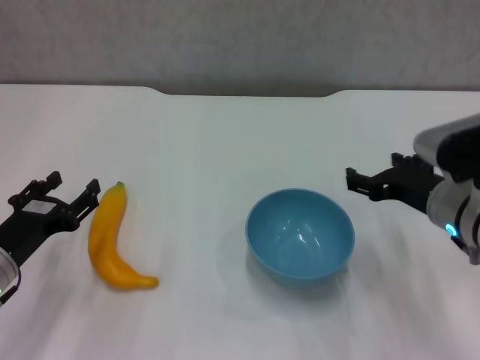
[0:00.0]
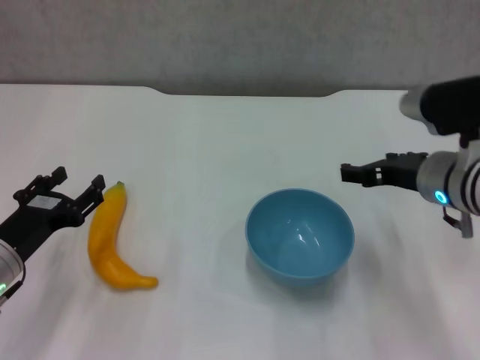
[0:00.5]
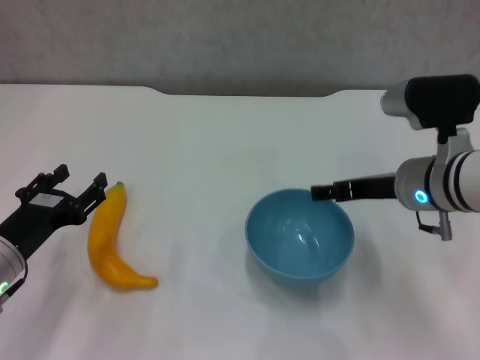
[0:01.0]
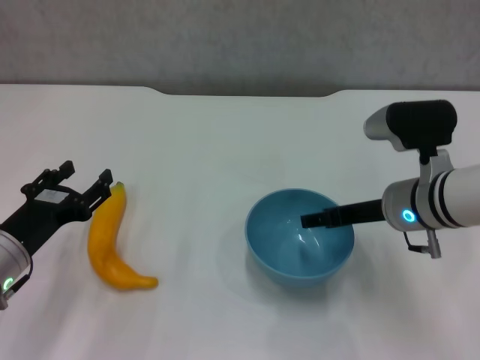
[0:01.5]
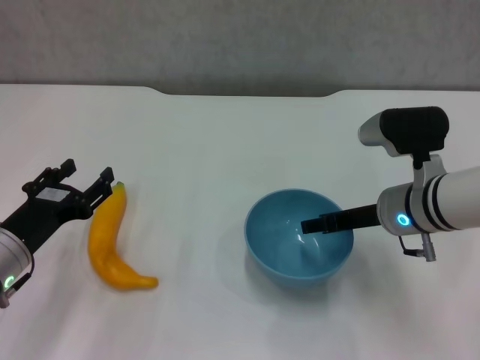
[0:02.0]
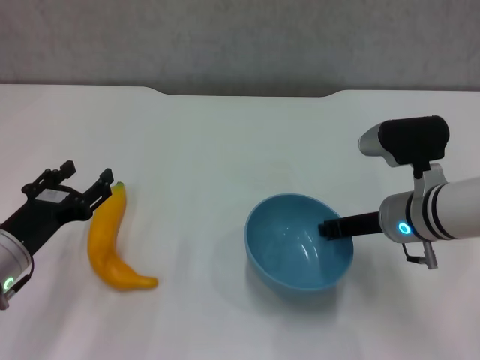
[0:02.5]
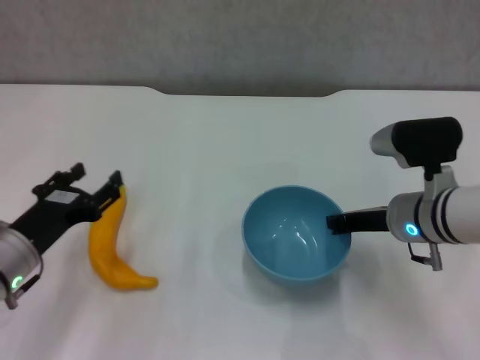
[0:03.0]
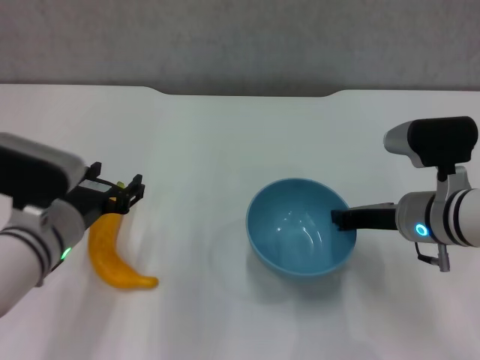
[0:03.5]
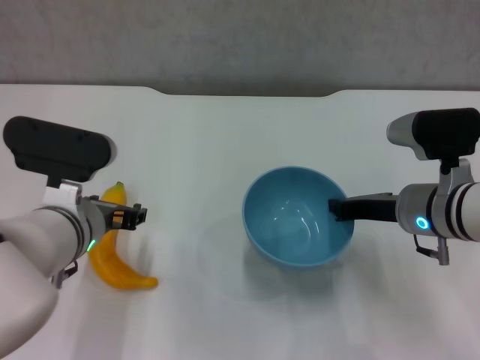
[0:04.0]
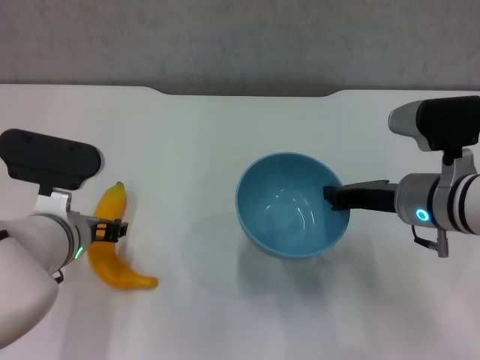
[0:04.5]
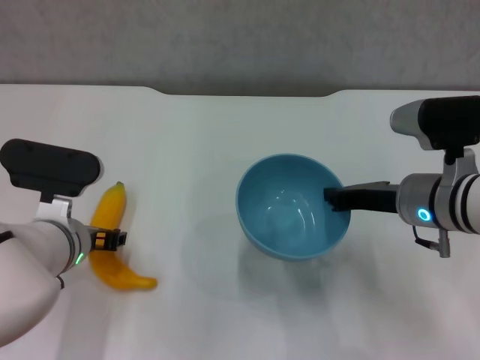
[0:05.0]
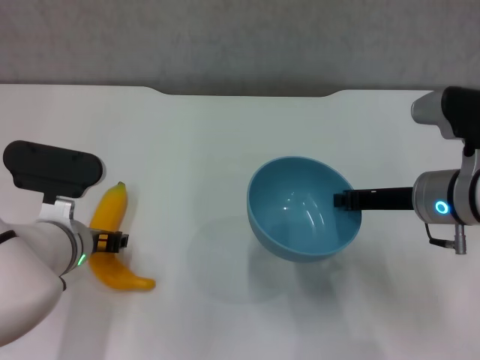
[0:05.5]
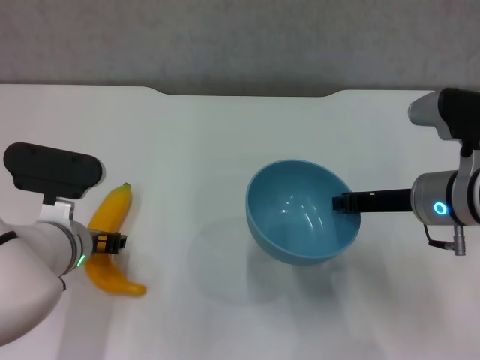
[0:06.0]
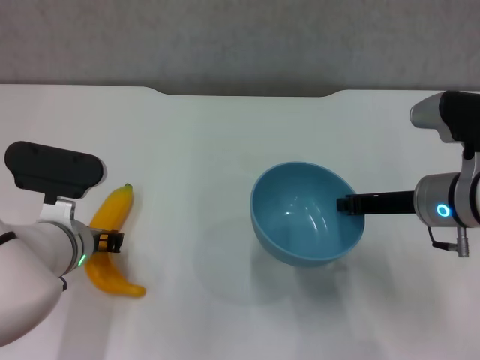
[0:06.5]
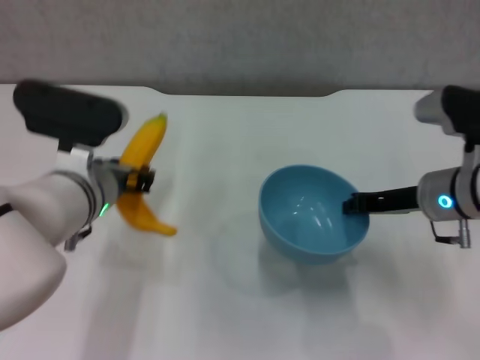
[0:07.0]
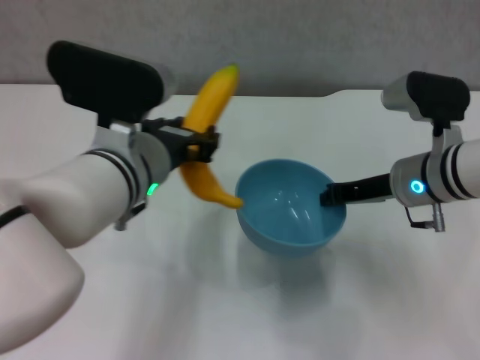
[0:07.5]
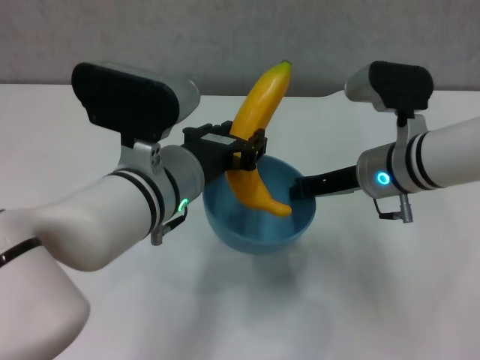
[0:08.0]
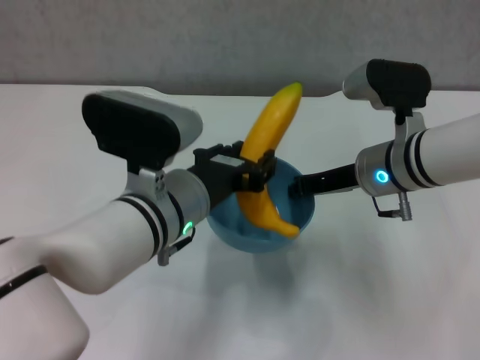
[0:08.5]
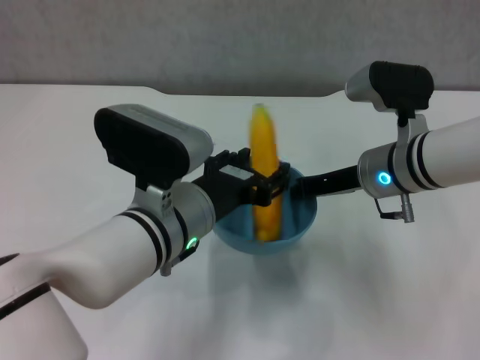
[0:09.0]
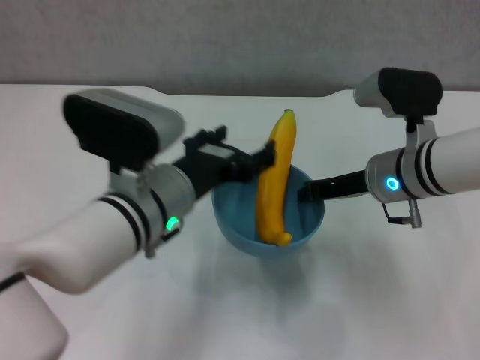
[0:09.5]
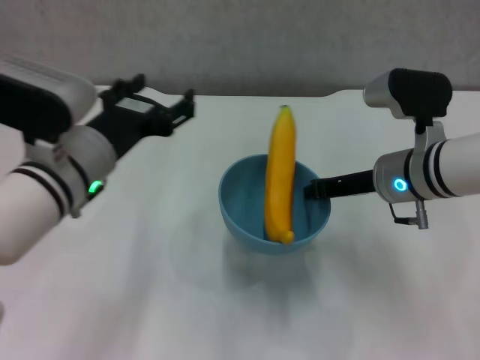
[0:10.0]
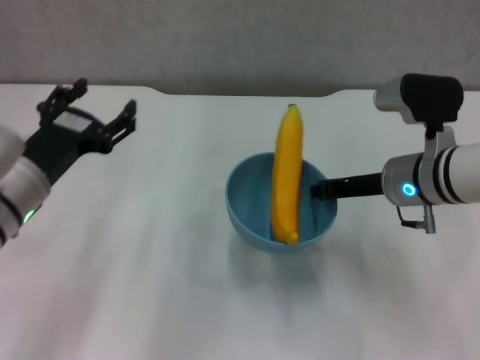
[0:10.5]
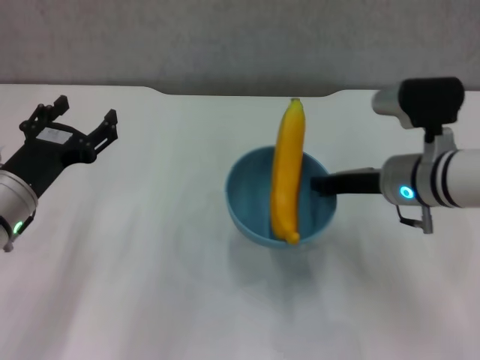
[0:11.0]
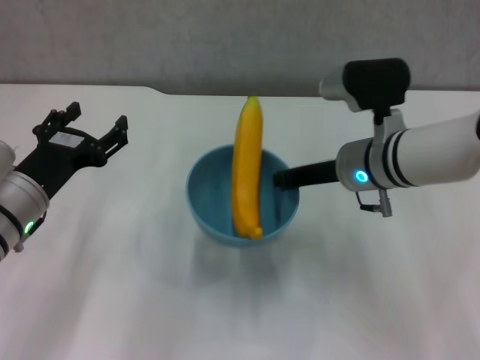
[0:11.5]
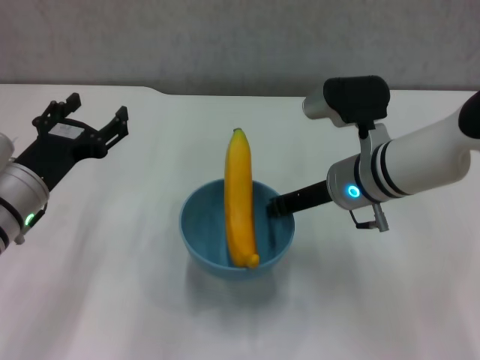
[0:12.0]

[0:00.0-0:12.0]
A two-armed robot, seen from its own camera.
Step, 0.0 to 2.5 s: Grasp the blue bowl with right gripper.
Step, 3.0 to 4.0 s: Lift the blue bowl with right gripper.
Step, 4.5 to 6.0 s: Grasp the banana with left gripper.
Step, 7.0 to 9.0 s: Place the banana in the blue bowl with left gripper.
0.0 to 2.0 s: The right gripper changes place by roughly 5 cm.
2.0 to 4.0 s: The left gripper goes approximately 10 cm to the right and upward, while the right gripper closes up.
4.0 to 6.0 s: The grippers stay close to where they were, moving slightly.
6.0 to 8.0 s: The left gripper shifts approximately 15 cm to the right and upward, and closes. The right gripper travels to the left by approximately 5 cm.
8.0 to 10.0 s: The left gripper shifts about 10 cm to the left, and opens its fingers.
10.0 to 12.0 s: The right gripper heads to the left, covering roughly 5 cm; the left gripper is displaced to the left and downward by about 10 cm.

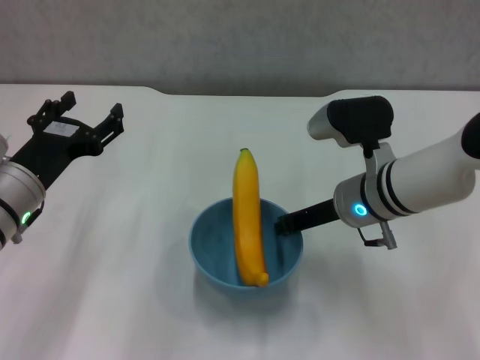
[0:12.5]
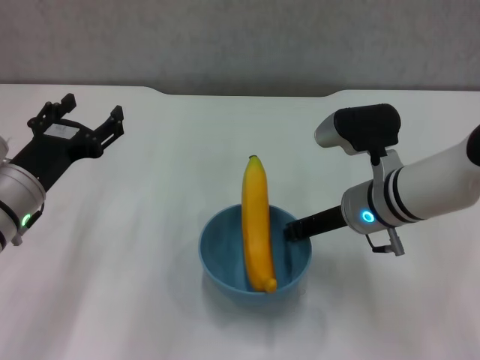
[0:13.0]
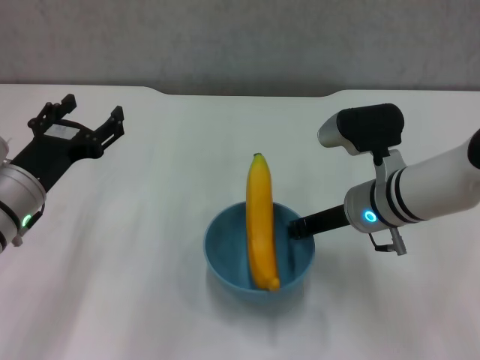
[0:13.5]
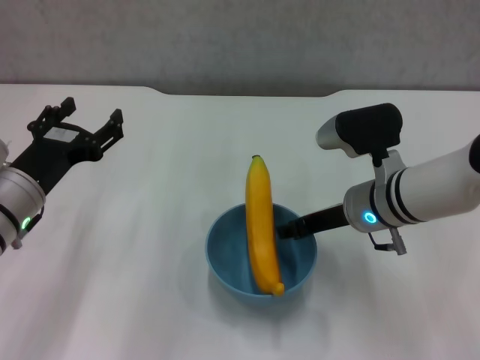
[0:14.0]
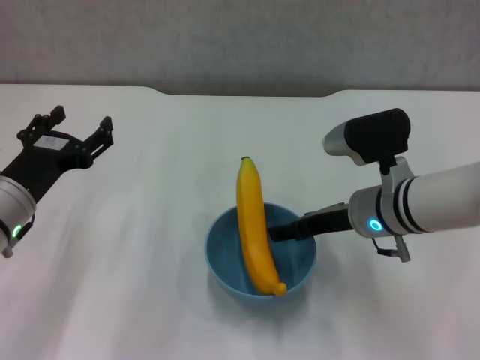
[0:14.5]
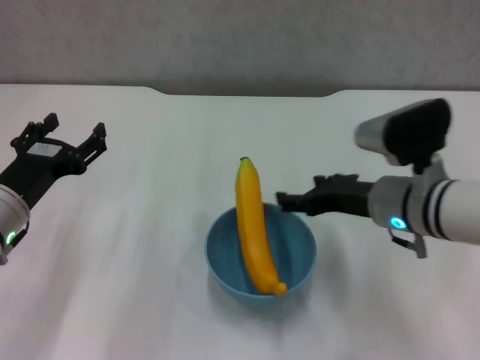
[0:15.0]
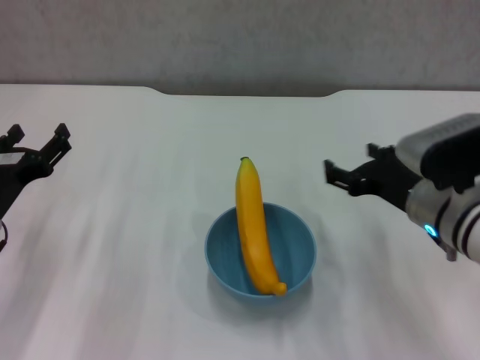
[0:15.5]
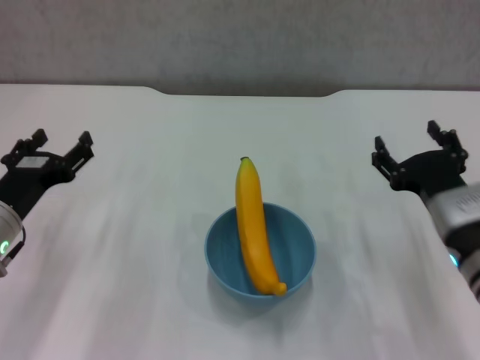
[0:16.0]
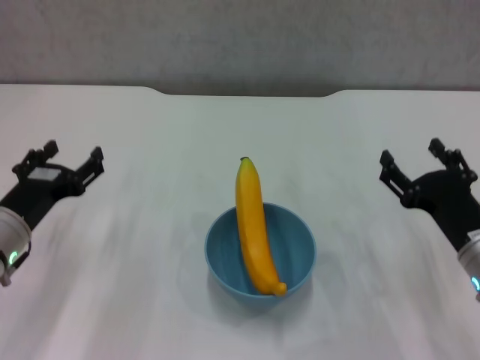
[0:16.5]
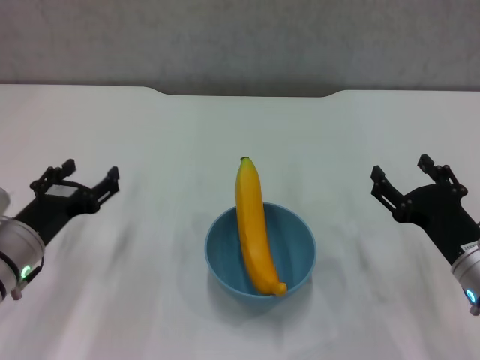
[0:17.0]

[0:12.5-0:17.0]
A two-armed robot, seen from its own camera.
12.5 to 14.5 s: The right gripper opens its fingers.
14.5 to 17.0 s: The right gripper moves backward, to the right and downward, about 15 cm.

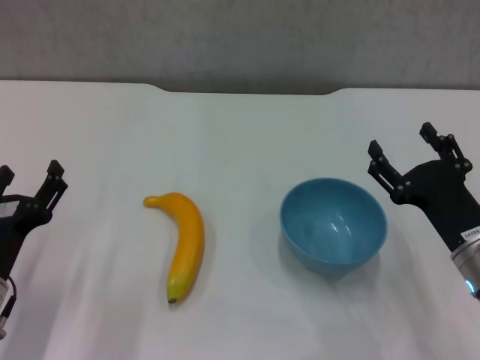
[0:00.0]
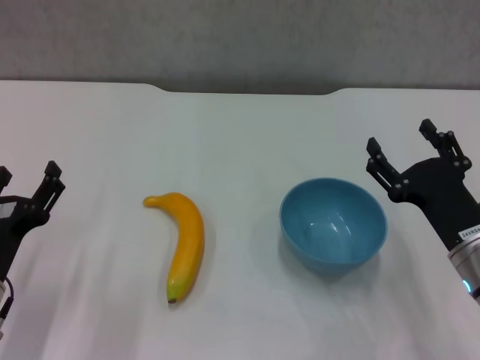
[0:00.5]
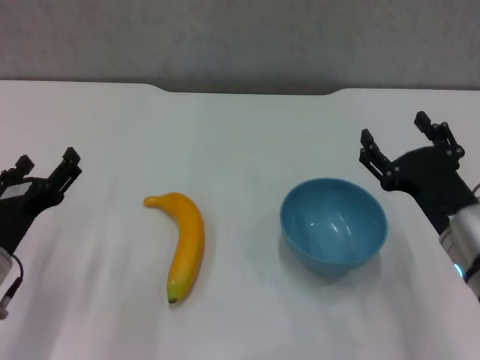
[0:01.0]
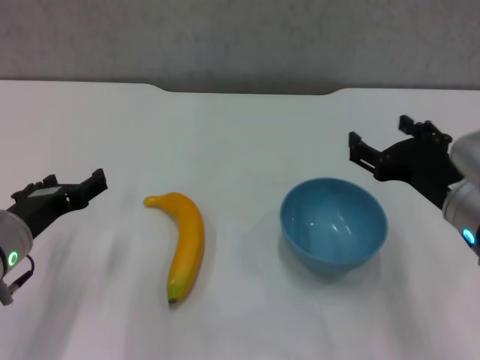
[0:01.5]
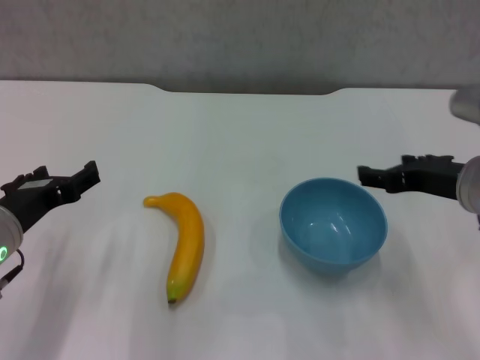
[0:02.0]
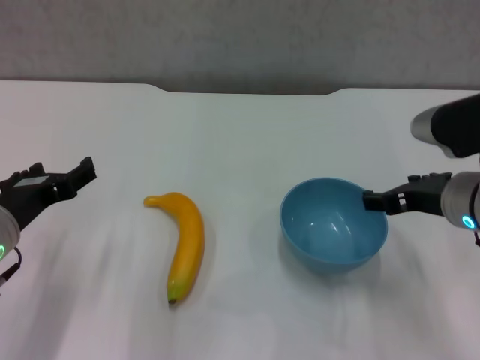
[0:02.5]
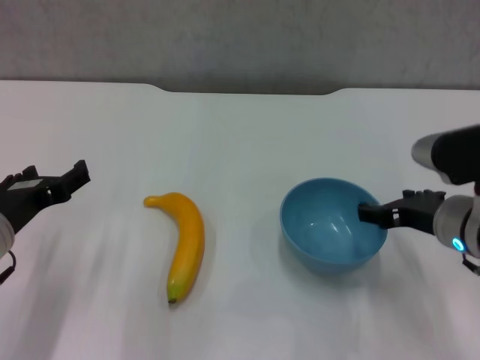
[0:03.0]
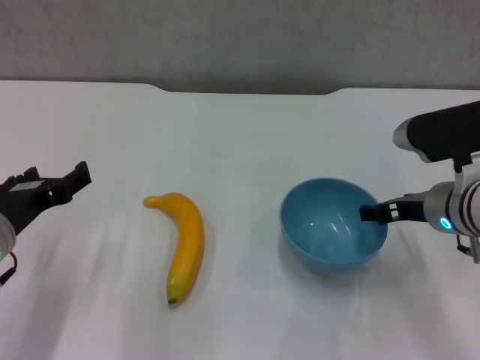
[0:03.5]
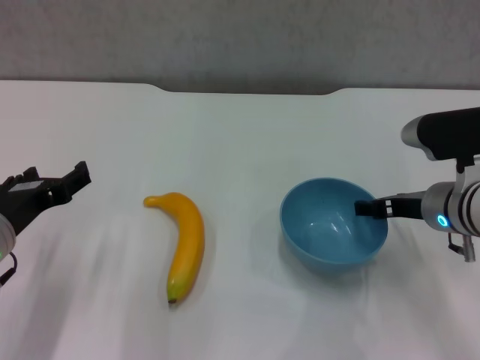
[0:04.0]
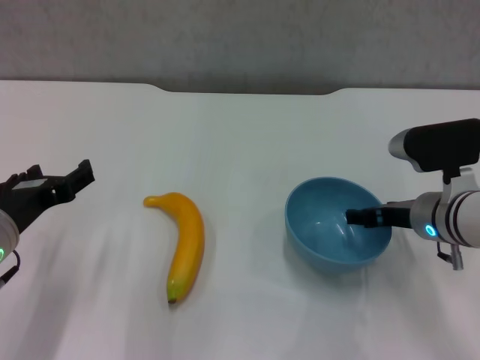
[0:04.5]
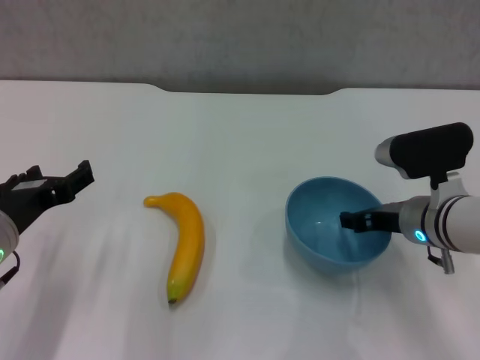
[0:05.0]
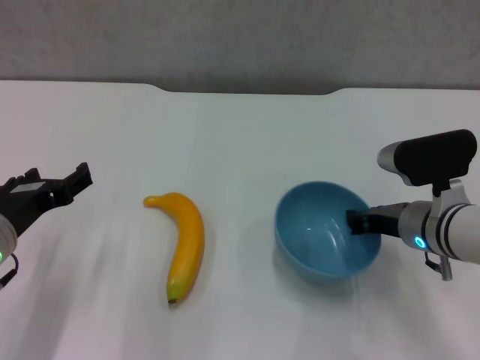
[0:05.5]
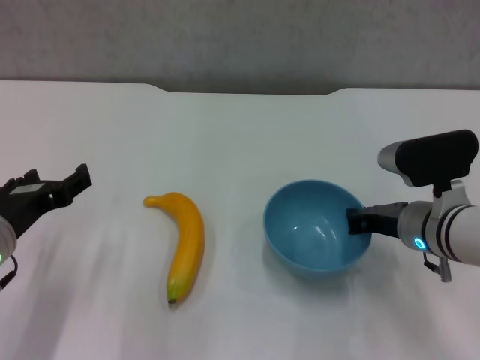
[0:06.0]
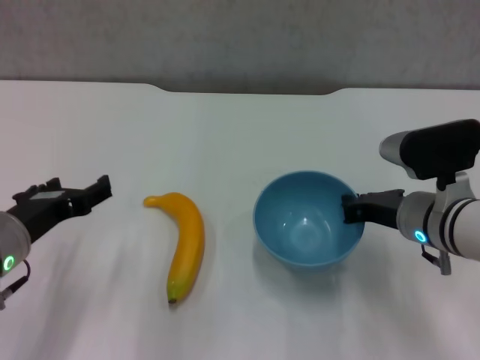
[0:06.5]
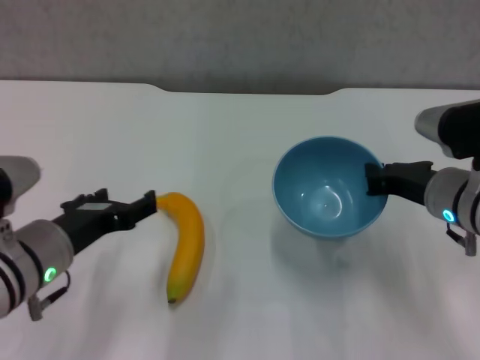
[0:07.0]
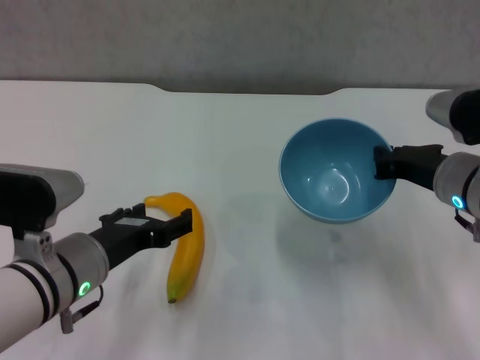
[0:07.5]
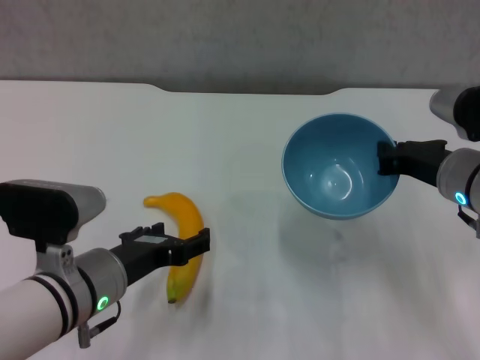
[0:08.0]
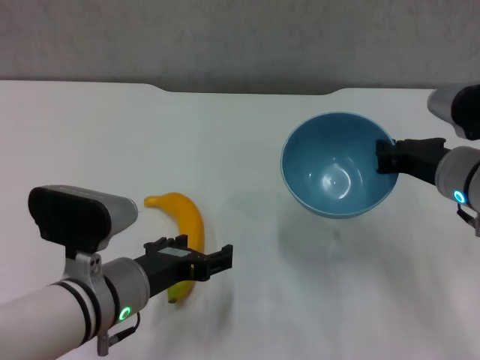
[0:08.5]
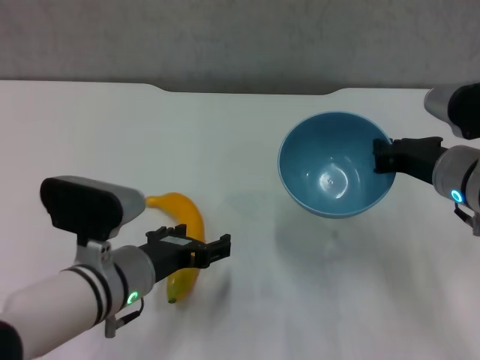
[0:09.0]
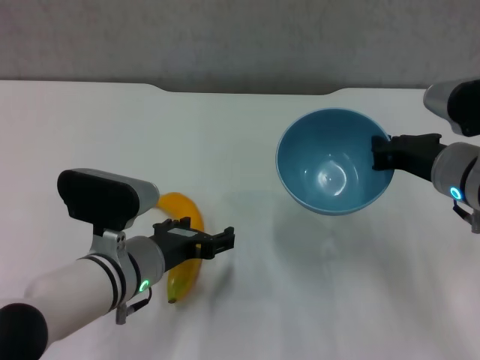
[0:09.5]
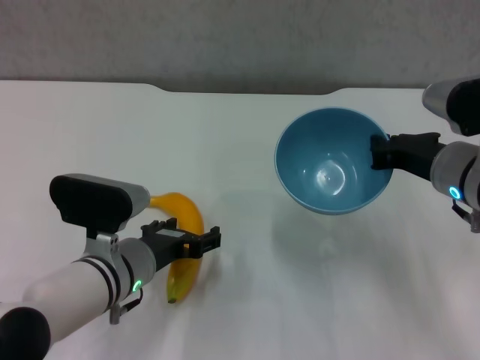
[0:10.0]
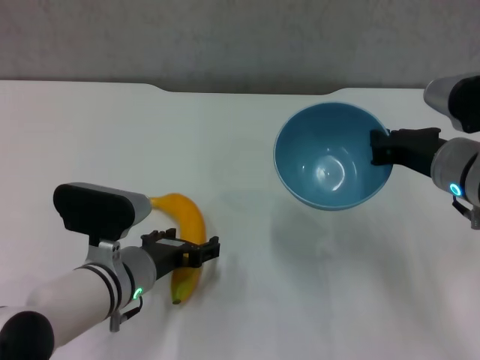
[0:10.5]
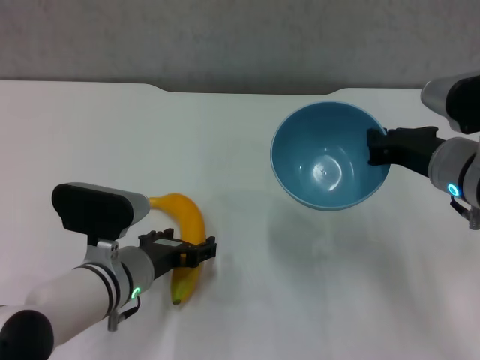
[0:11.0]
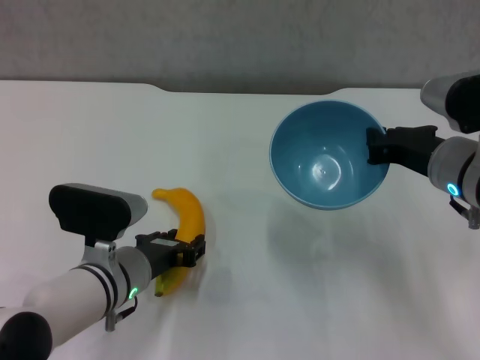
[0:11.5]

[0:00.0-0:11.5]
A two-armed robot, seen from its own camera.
Step, 0.0 to 6.0 s: Grasp the blue bowl with right gripper.
Step, 6.5 to 7.0 s: Lift the blue bowl with right gripper.
Step, 7.5 to 11.0 s: Grasp the banana with left gripper.
0.0 to 2.0 s: The right gripper heads upward and forward, covering about 10 cm, while the left gripper shifts some 5 cm upward.
2.0 to 4.0 s: The right gripper is displaced downward by approximately 5 cm.
4.0 to 6.0 s: The right gripper closes its fingers.
6.0 to 7.5 s: The right gripper heads upward, covering roughly 5 cm. Meanwhile the left gripper goes about 5 cm to the right.
7.5 to 9.5 s: The left gripper ends up roughly 5 cm from where it was.
9.5 to 11.5 s: The left gripper closes up.
